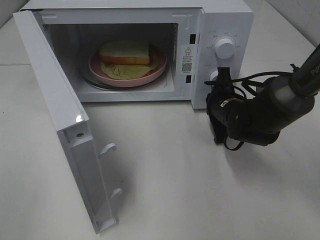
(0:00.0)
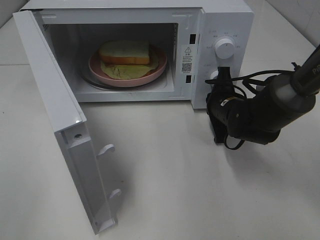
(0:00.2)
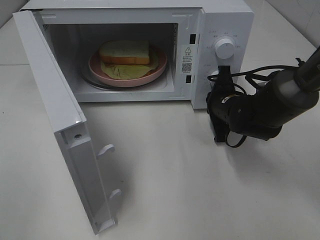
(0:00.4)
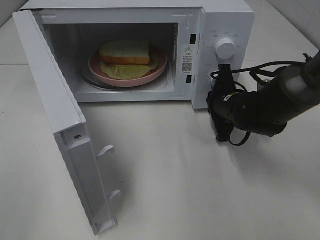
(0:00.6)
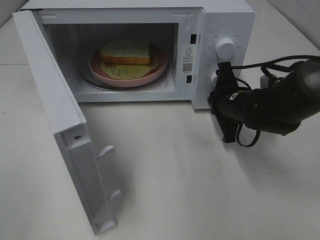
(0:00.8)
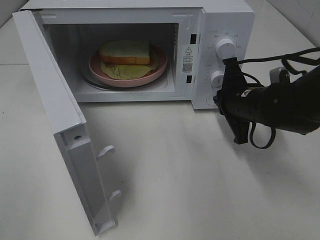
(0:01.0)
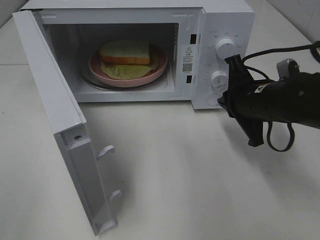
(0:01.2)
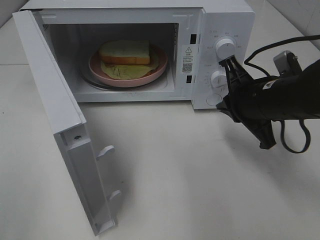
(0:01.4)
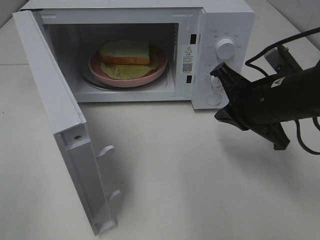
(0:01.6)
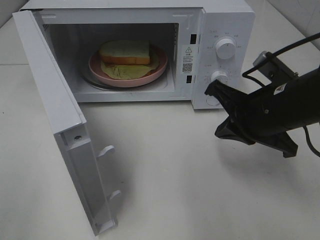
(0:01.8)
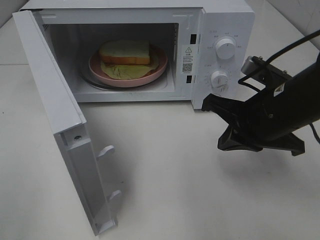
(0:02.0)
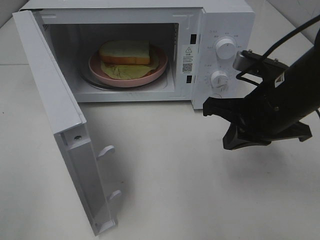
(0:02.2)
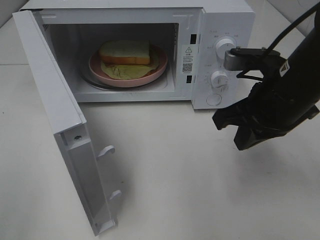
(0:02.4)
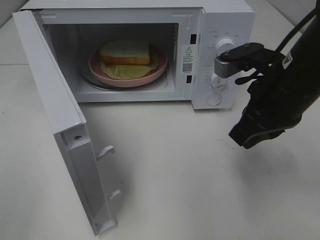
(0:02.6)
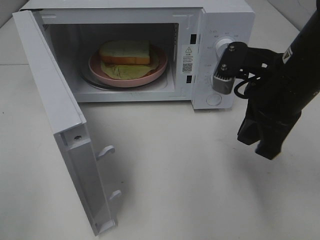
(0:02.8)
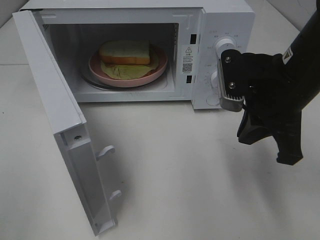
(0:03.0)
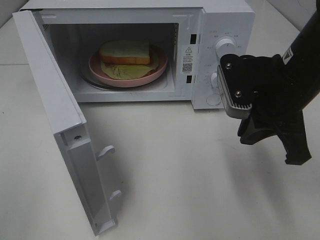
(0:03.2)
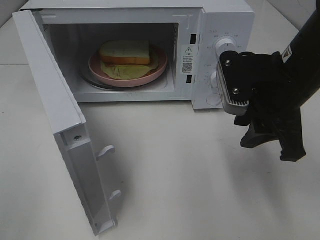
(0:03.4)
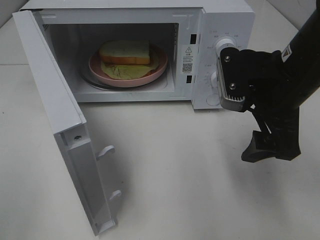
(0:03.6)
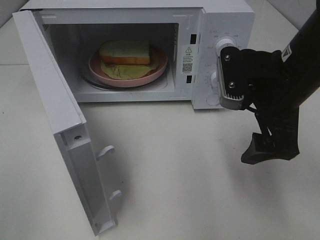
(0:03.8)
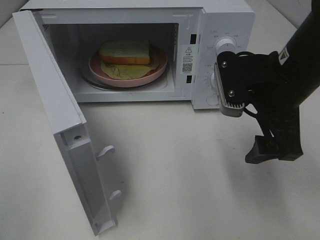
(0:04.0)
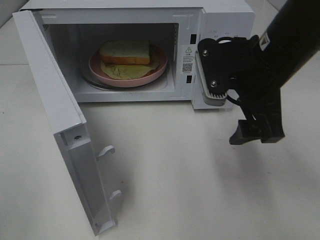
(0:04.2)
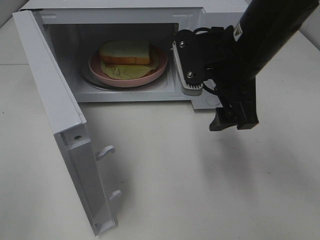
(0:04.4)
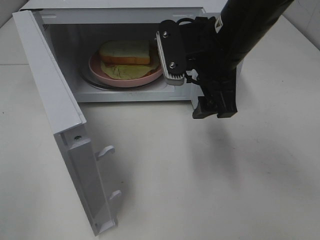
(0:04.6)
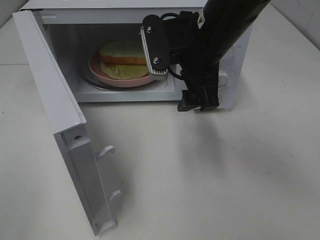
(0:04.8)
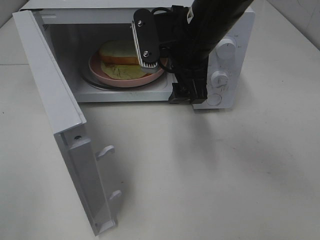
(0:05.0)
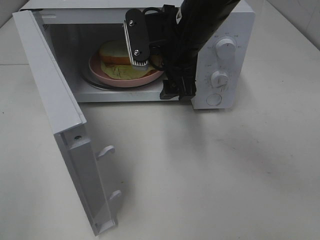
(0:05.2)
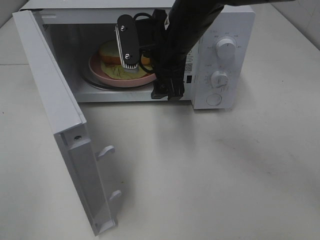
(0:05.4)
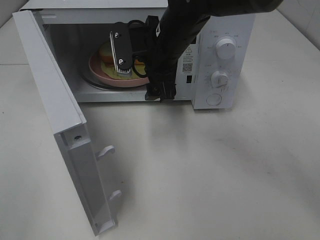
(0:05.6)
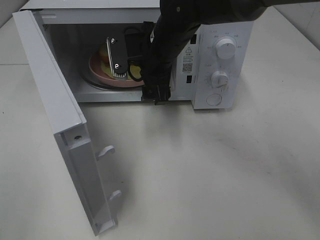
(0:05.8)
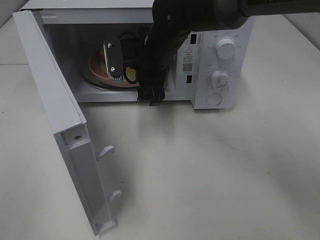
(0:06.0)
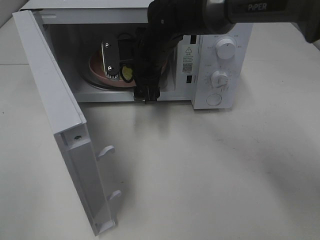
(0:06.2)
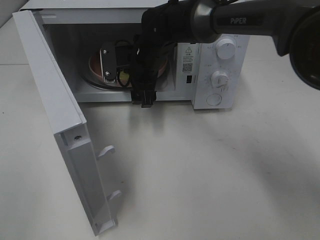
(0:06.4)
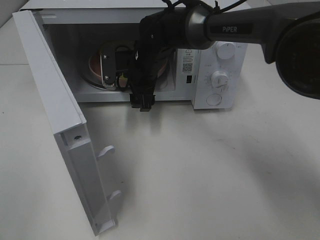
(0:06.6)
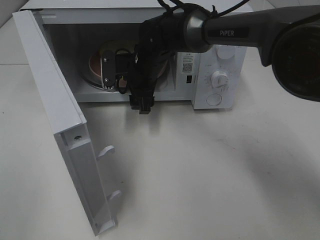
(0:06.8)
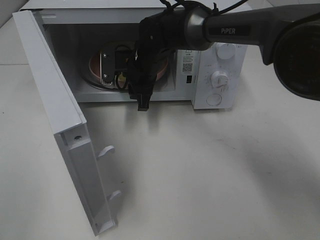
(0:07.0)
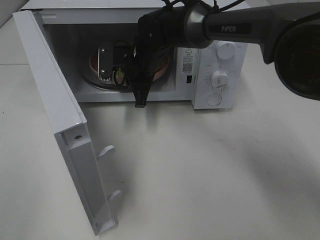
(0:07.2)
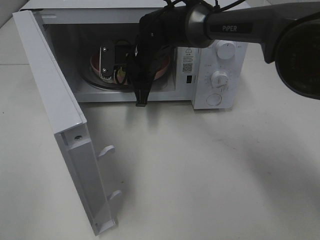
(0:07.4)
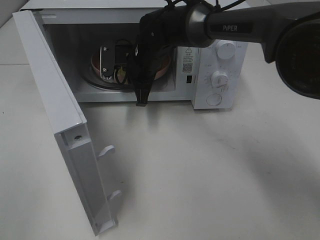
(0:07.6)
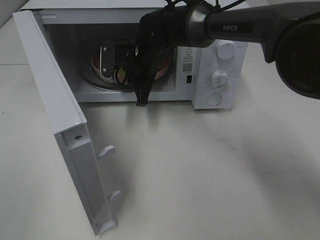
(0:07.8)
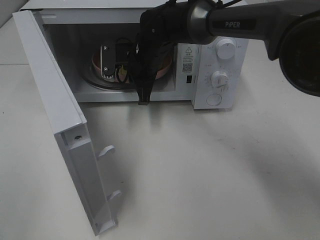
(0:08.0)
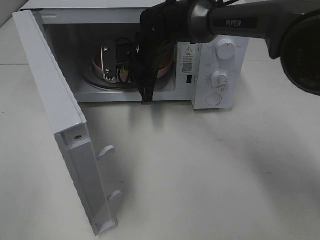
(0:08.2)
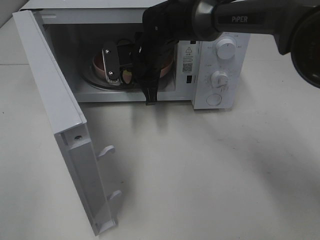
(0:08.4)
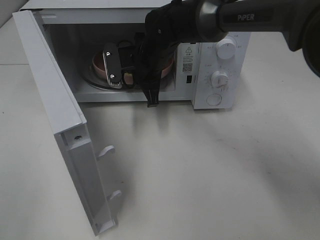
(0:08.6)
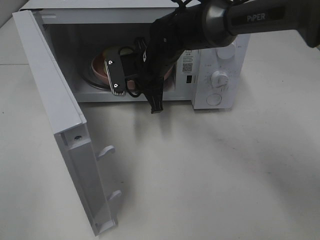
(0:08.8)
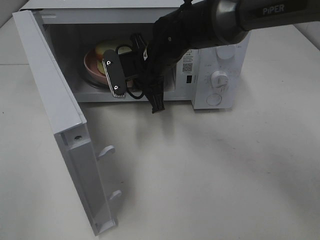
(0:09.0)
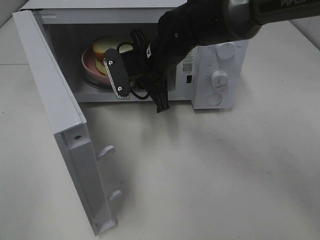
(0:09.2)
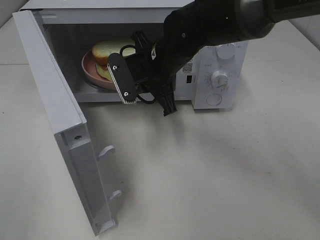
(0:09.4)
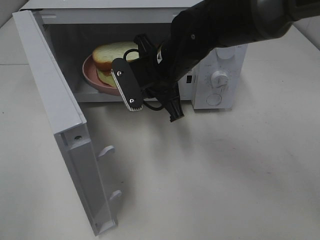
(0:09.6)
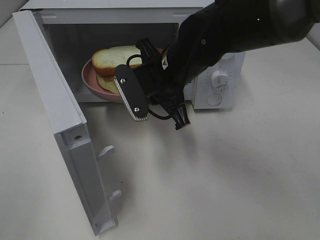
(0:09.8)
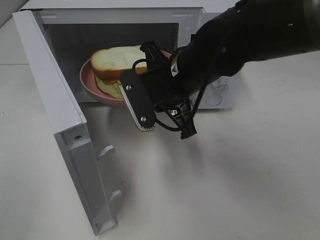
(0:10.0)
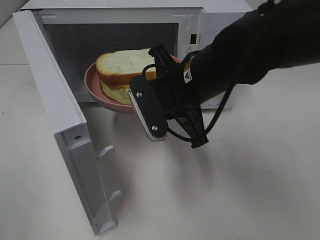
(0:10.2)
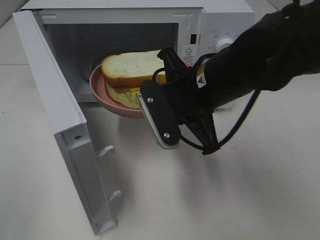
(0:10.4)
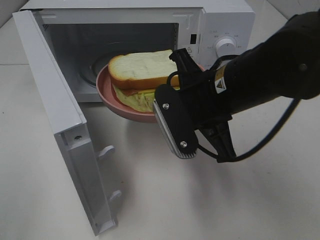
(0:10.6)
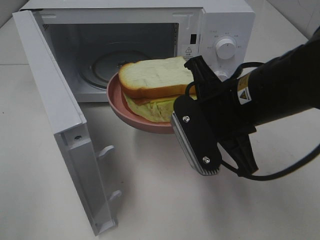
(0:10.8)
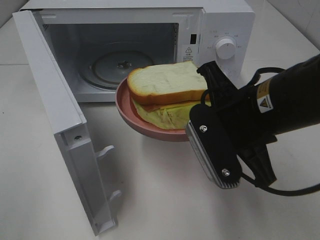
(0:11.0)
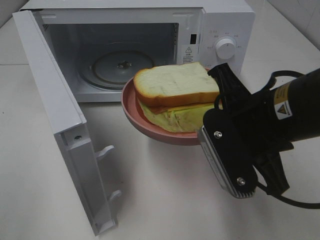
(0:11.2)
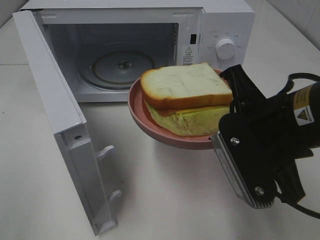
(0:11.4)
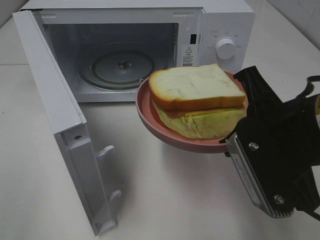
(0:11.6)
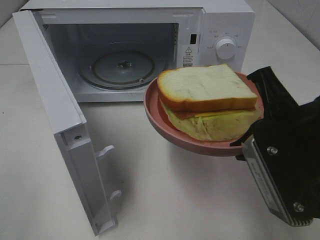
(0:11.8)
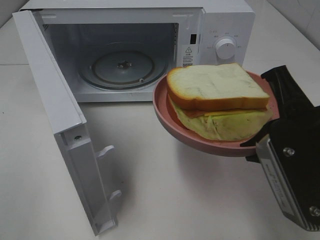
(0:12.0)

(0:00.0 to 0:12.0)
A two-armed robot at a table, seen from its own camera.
Task of the whole recording: Heat Sandwich.
Step, 0:01.4 - 0:07.2: Right hand: grab the plate with the sandwich.
0:00.0 - 0:01.6: The right gripper moves upward and backward, about 15 cm.
0:03.0 - 0:04.4: The right gripper travels to the left by about 5 cm, and opens.
0:04.4 - 0:06.0: The right gripper goes approximately 20 cm forward, to the left and downward.
0:06.0 - 0:07.6: The right gripper moves some 5 cm, and closes up.
0:07.6 - 0:09.0: The right gripper travels backward by about 5 cm.
0:09.0 - 0:10.4: The right gripper heads backward and to the right, covering approximately 15 cm.
0:10.4 - 0:12.0: The right gripper goes about 15 cm backward and to the right.

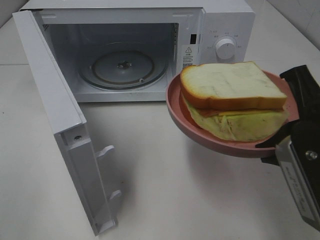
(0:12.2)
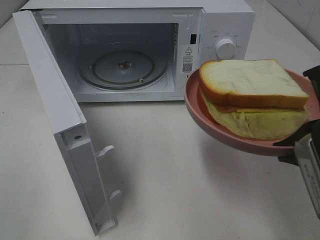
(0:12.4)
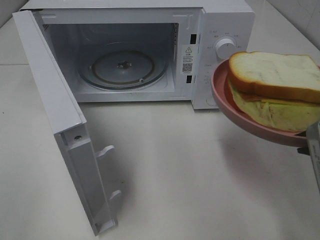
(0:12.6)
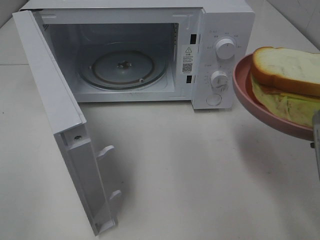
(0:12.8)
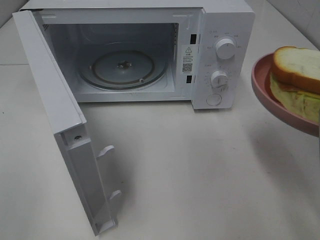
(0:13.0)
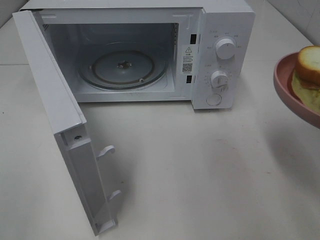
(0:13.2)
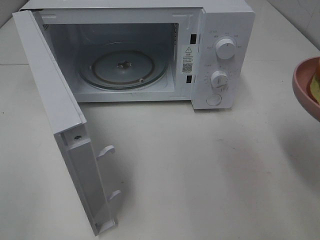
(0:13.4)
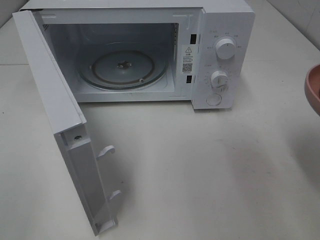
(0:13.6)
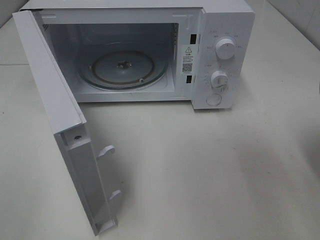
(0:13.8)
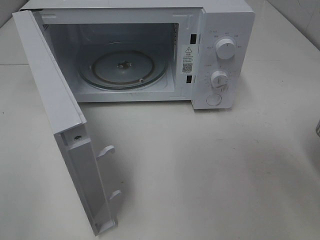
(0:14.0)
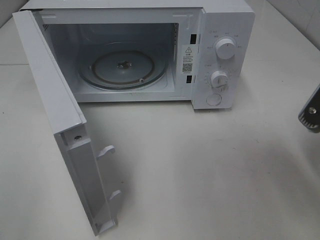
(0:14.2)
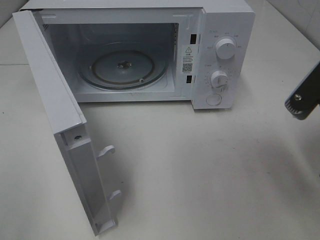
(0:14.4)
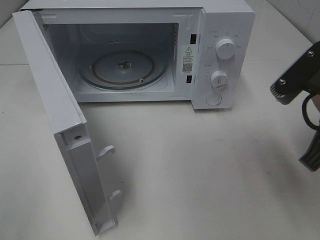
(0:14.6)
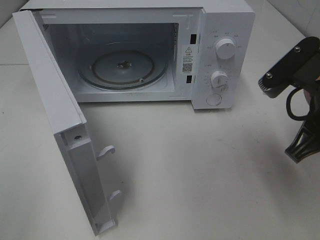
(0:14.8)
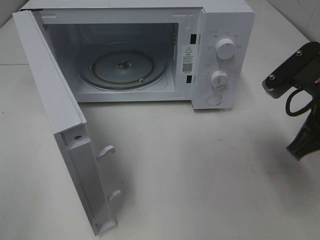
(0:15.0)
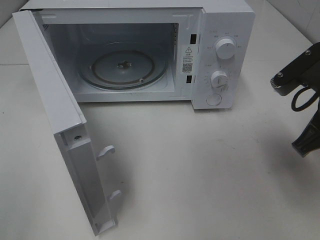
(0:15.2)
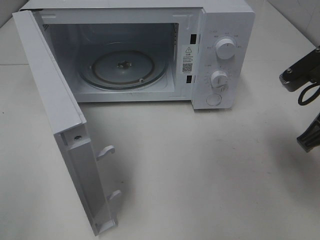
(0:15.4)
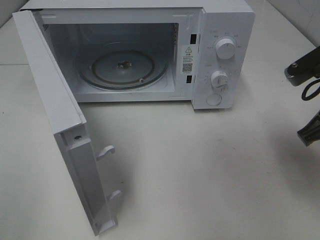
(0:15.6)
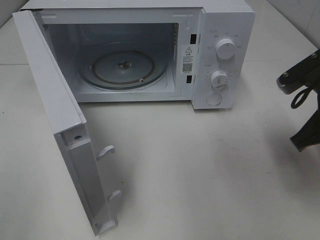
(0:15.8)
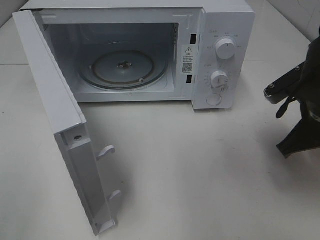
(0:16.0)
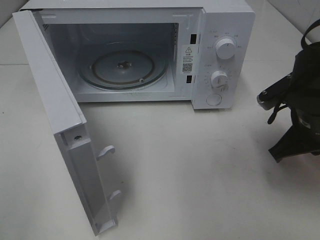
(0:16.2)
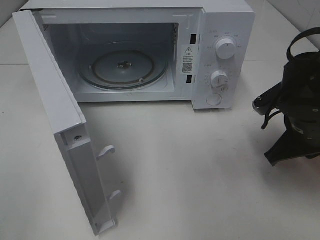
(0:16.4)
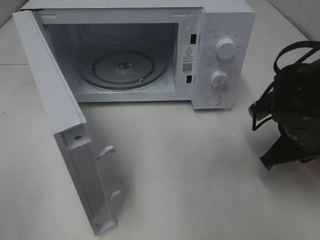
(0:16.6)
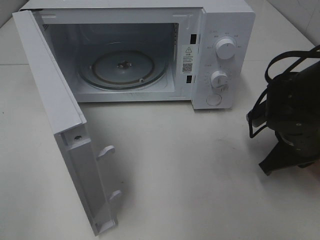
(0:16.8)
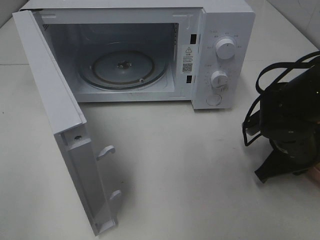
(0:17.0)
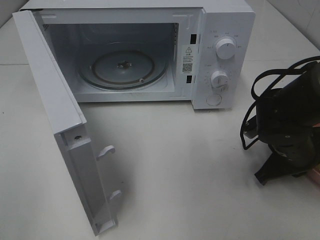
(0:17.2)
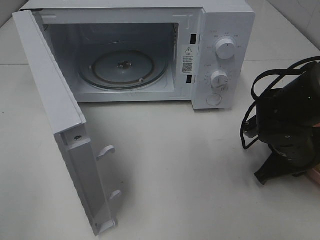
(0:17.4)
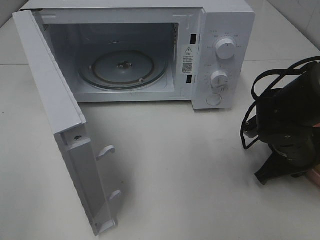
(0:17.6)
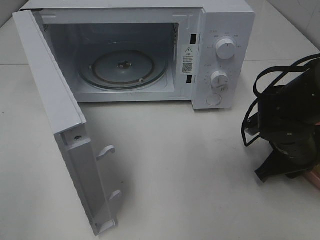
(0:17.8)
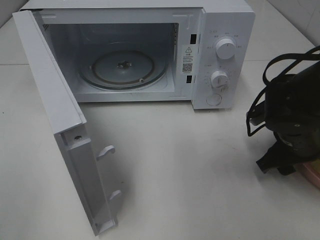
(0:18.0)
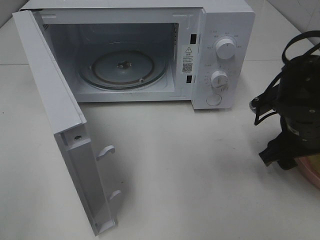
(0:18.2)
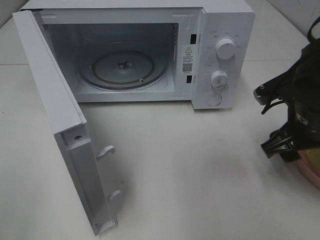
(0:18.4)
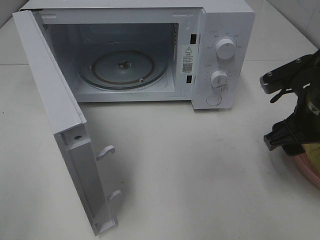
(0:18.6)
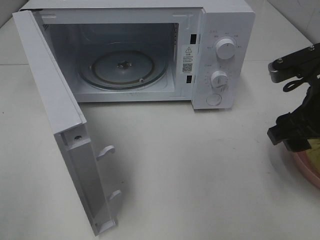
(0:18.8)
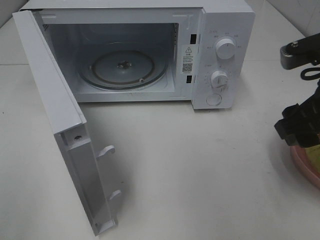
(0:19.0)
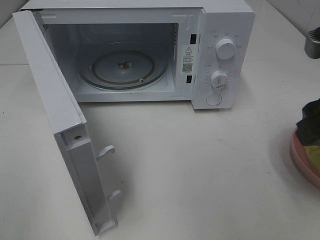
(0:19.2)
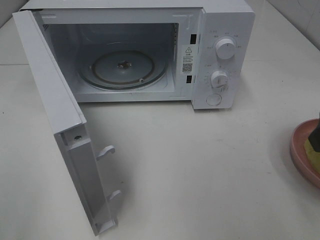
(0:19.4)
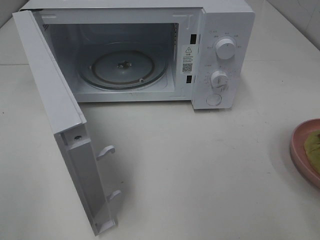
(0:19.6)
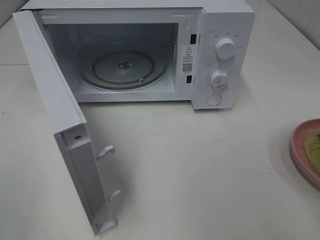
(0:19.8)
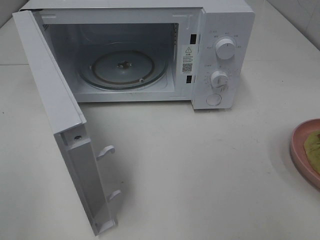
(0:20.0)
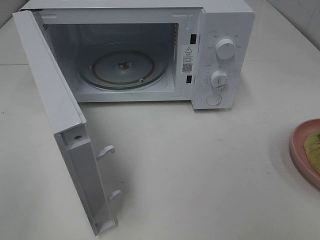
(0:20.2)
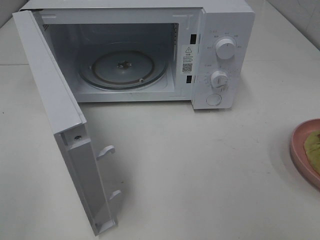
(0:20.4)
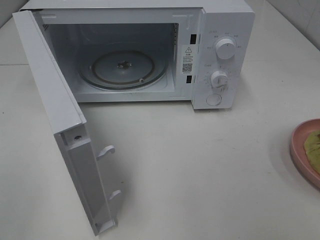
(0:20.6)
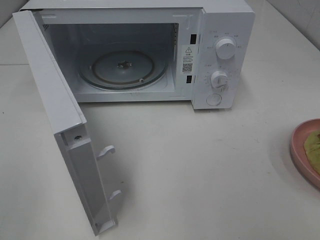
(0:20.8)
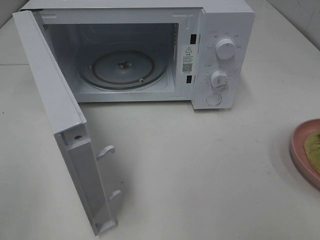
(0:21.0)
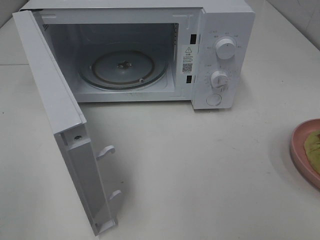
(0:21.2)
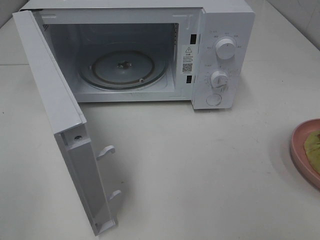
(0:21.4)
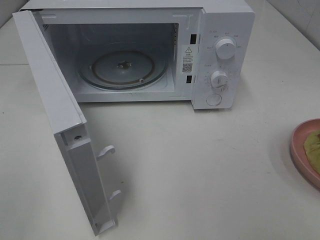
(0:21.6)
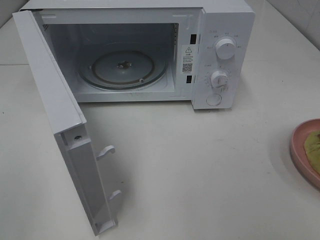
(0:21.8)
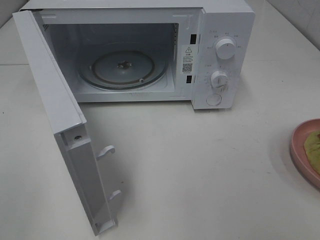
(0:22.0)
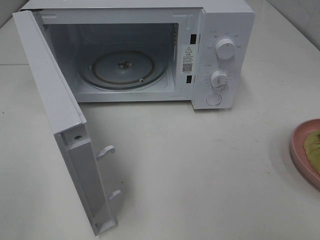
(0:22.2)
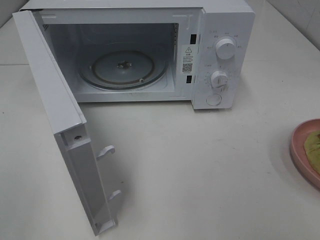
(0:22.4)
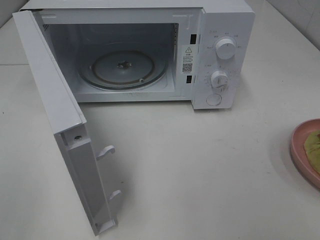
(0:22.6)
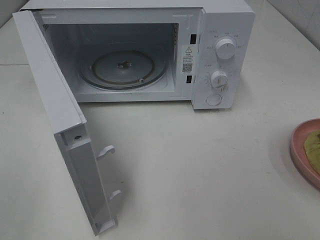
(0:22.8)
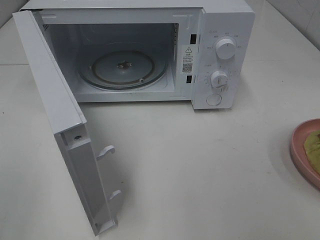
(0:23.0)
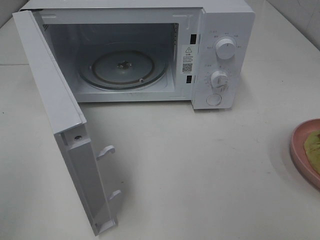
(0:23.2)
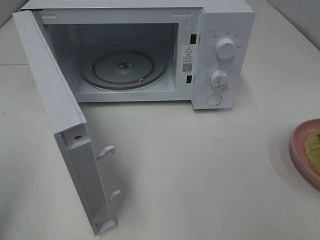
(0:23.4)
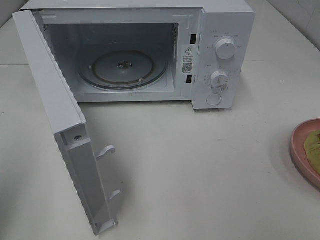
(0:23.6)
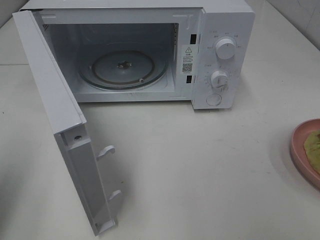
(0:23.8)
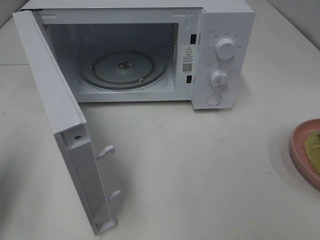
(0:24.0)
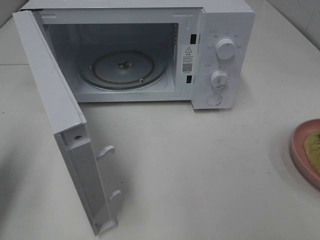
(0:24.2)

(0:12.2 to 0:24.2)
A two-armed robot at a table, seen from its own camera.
Task of the whole recording: Heat Sandwich.
Step, 0:12.2 - 0:18.6: Right hand: place the plate on the table.
0:12.2 - 0:13.8: The right gripper travels to the right by approximately 5 cm.
0:13.8 - 0:15.2: The right gripper heads forward, covering roughly 10 cm.
0:15.2 - 0:16.6: The right gripper moves downward, some 10 cm.
0:16.6 - 0:18.2: The right gripper opens up.
0:18.2 - 0:19.8: The right gripper heads upward and backward, covering about 25 cm.
0:21.2 - 0:22.6: Both grippers stay about where they are.
0:22.6 - 0:24.2: The left gripper goes about 20 cm forward, and closes its fingers.
